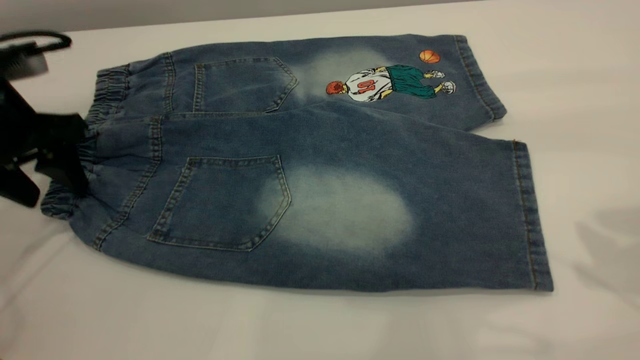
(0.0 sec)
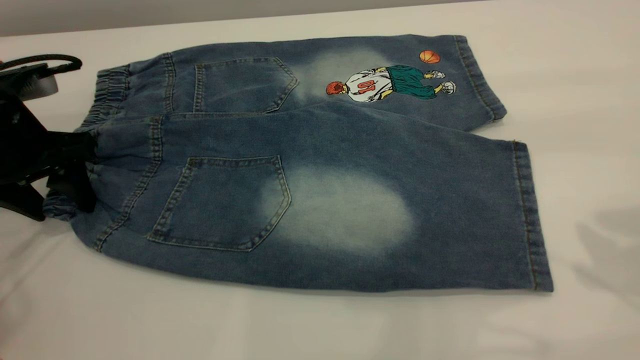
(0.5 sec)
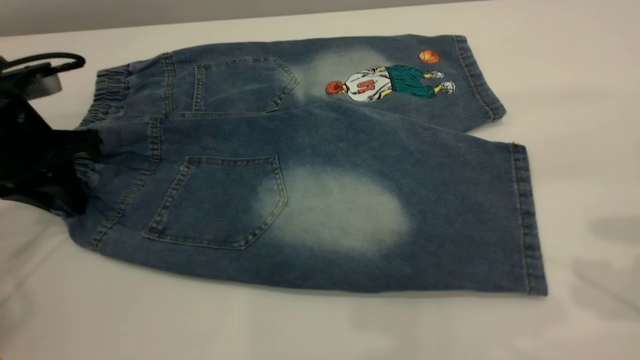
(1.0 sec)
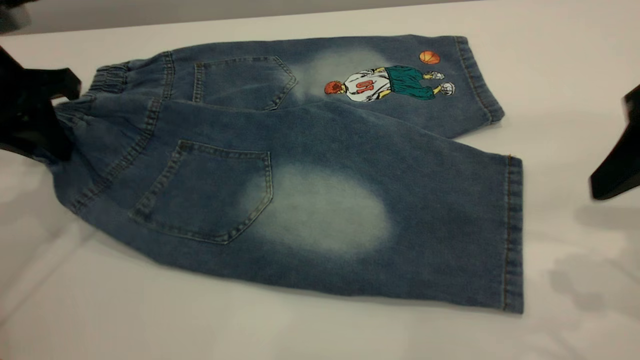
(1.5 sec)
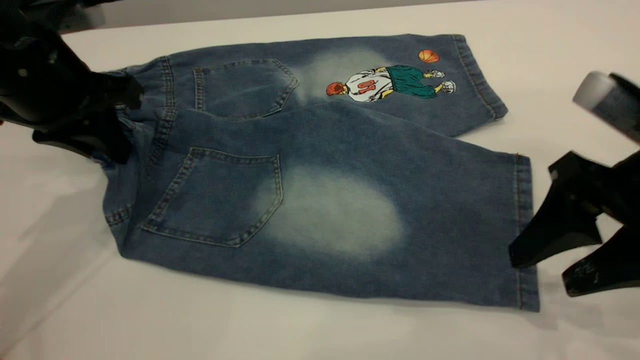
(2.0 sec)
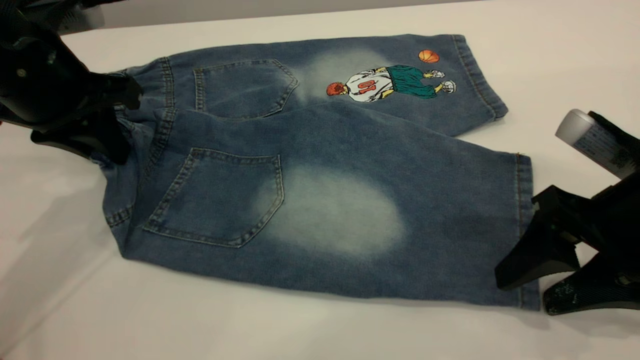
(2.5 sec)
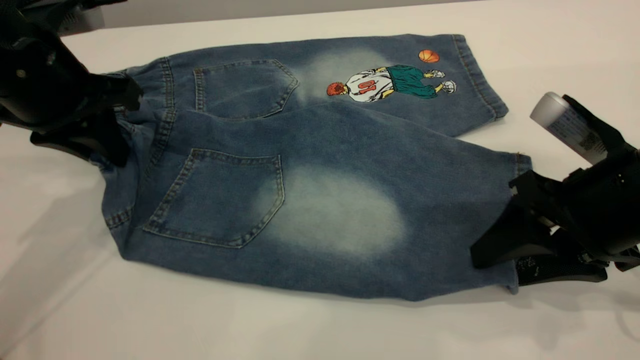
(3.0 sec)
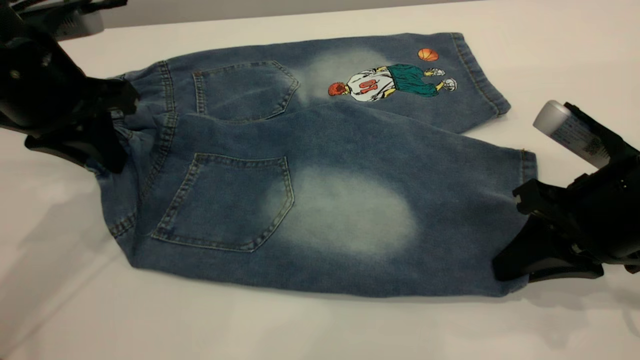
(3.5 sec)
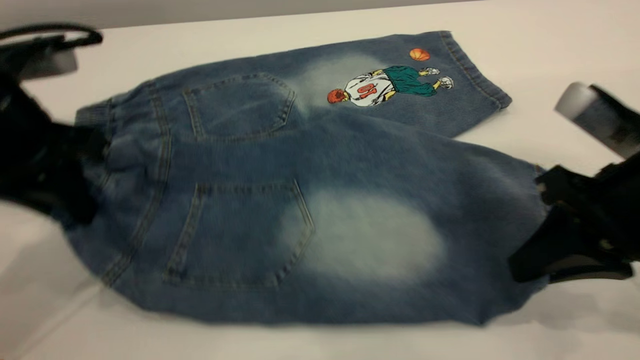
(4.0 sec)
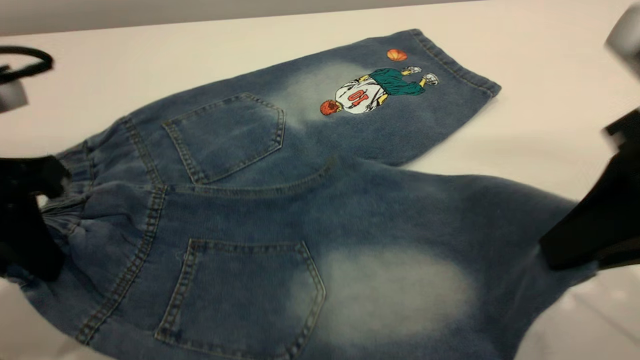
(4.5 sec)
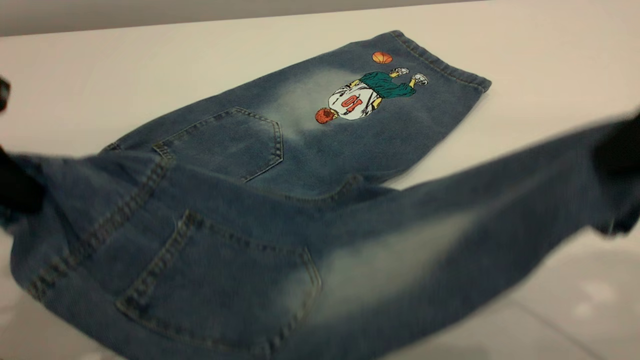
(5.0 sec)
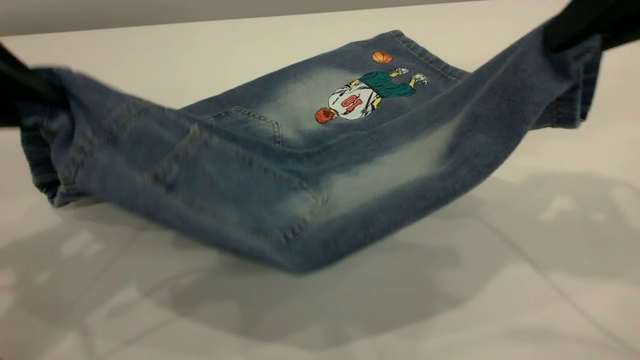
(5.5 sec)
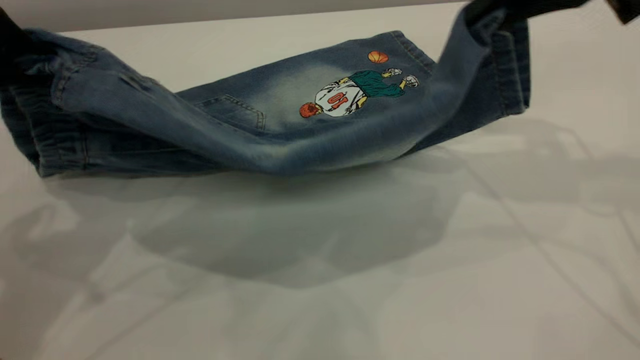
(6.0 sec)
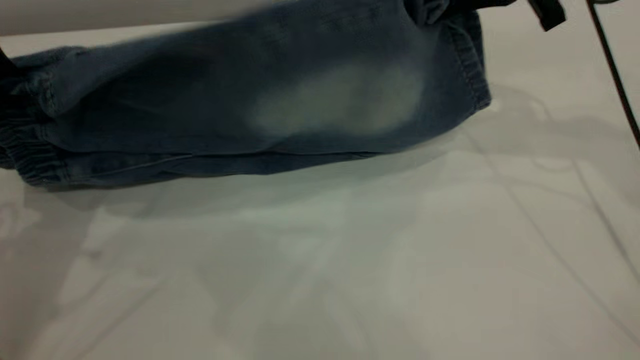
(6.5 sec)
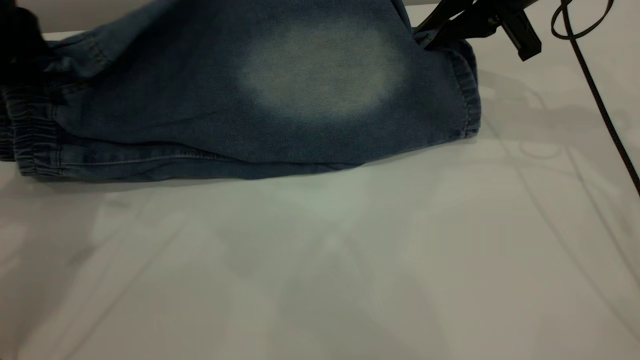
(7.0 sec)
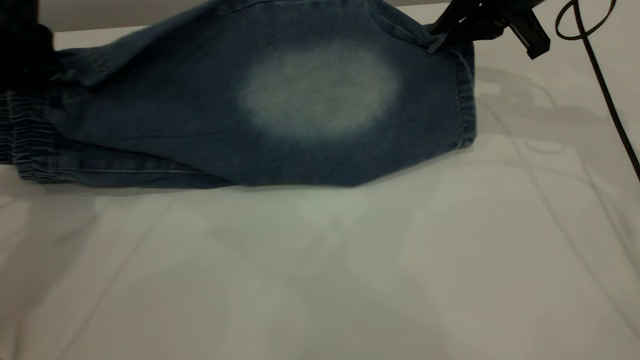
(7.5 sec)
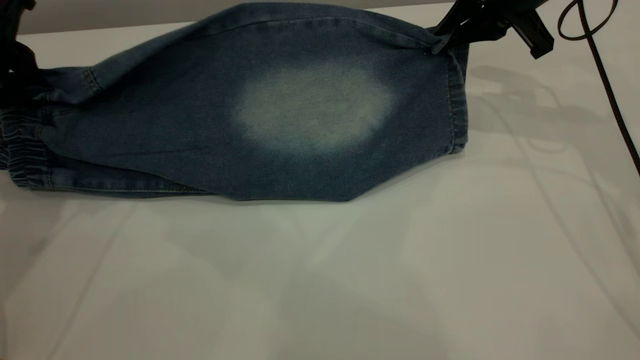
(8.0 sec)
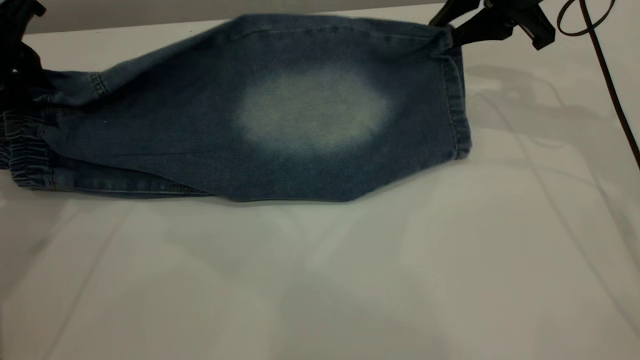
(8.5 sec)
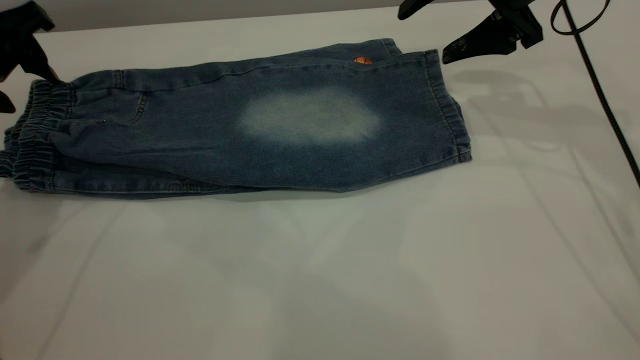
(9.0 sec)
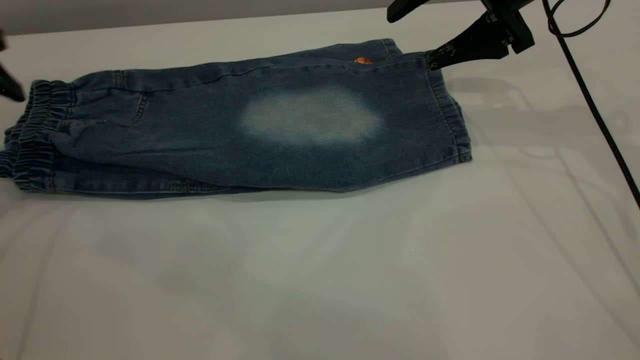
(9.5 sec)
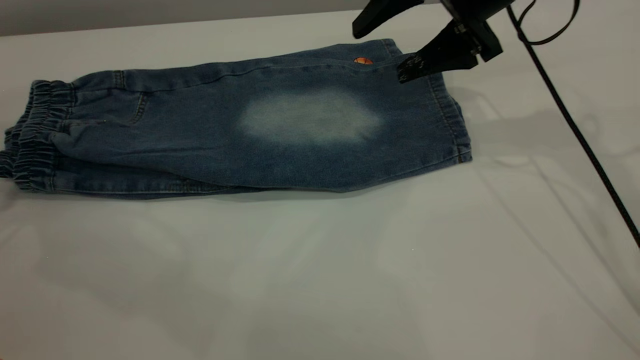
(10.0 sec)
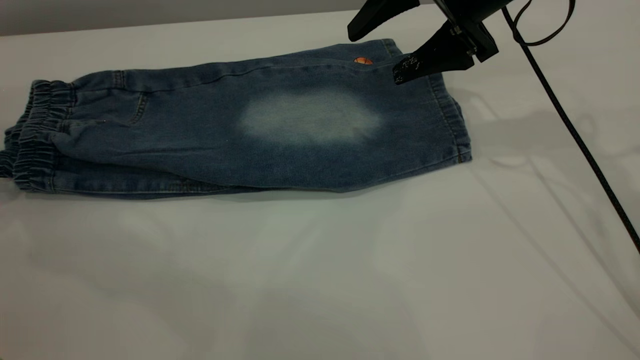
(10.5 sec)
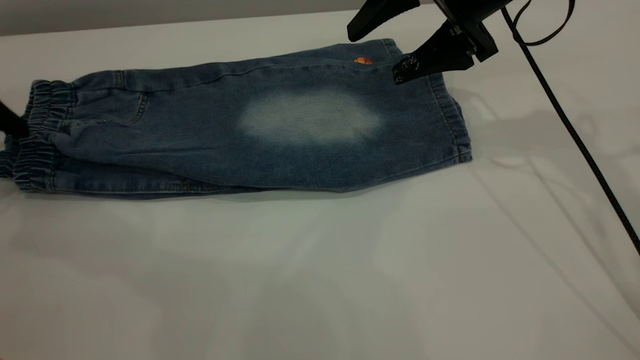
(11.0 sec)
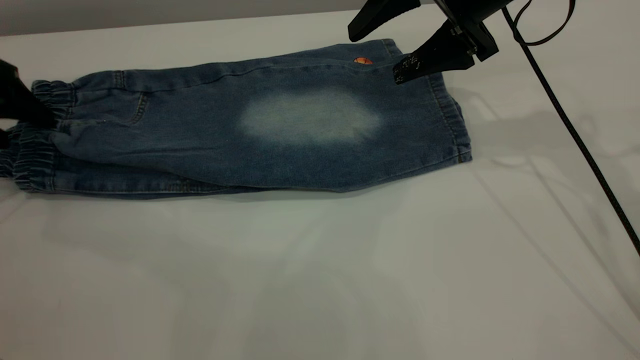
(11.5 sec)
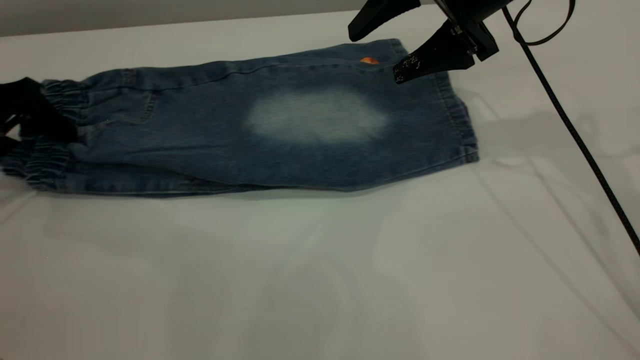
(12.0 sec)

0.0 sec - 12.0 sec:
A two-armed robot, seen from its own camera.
Step, 0.0 sec - 9.5 sec: Fold the bottom of the pants upward.
0.0 sec - 2.0 sec: The left gripper travels to the right by about 5 cm, and closes. The right gripper moves downward, approximately 15 cm.
2.0 sec - 4.0 sec: The left gripper shifts some 5 cm backward. The right gripper closes.
4.0 sec - 6.0 sec: The right gripper shifts approximately 20 cm upward and forward. The left gripper heads upward, covering approximately 10 cm.
6.0 sec - 8.0 sec: The right gripper travels forward and downward by roughly 10 cm, while the left gripper moves forward, downward and to the left, roughly 15 cm.
8.0 sec - 10.0 sec: The right gripper heads to the left, covering approximately 5 cm, and opens its fingers. The left gripper is displaced to the left by roughly 10 cm, and opens its fingers.
10.0 sec - 12.0 sec: The left gripper heads downward, covering about 10 cm.

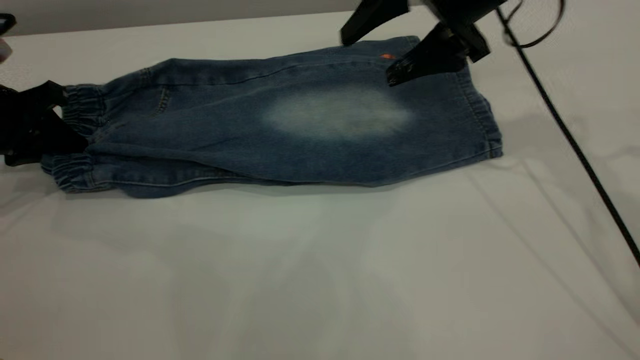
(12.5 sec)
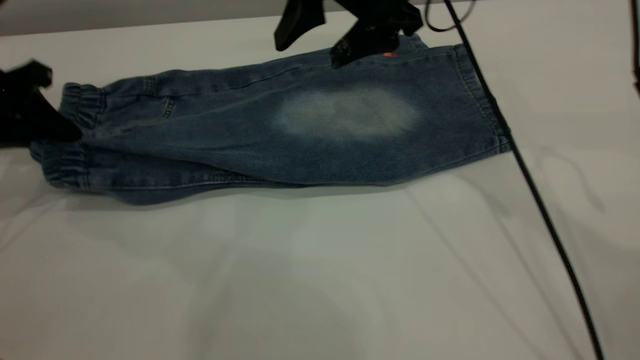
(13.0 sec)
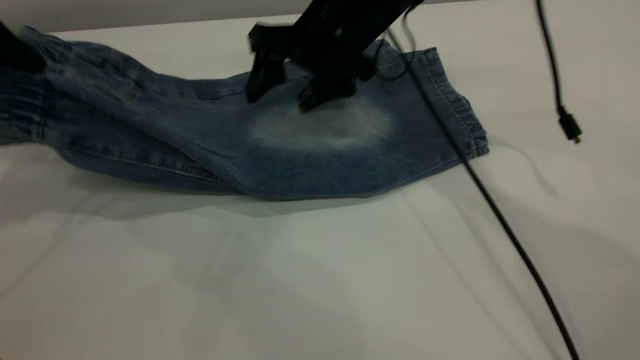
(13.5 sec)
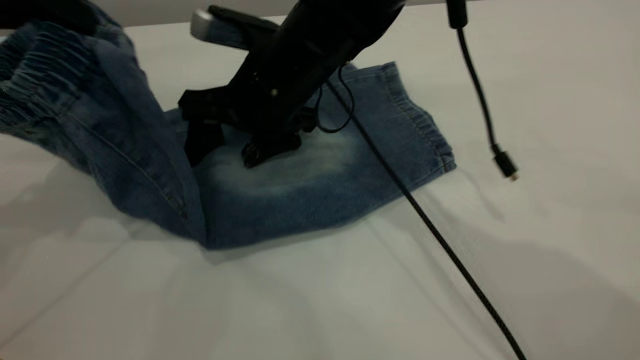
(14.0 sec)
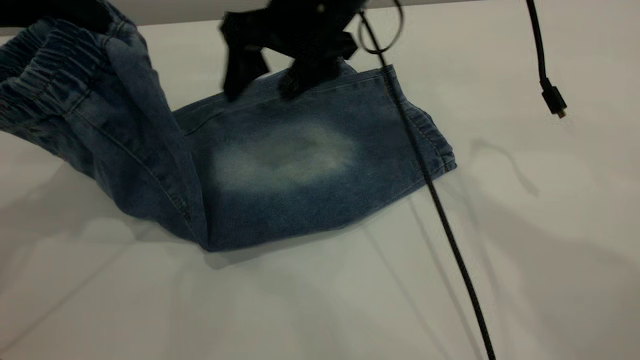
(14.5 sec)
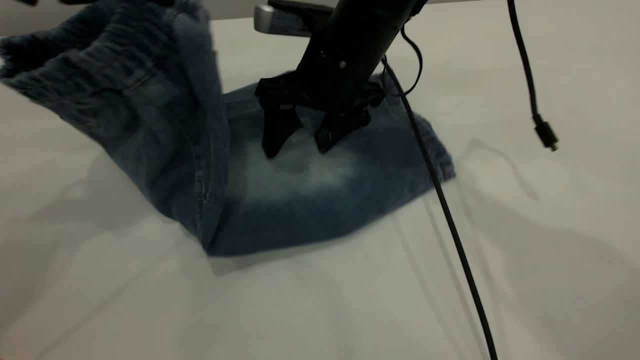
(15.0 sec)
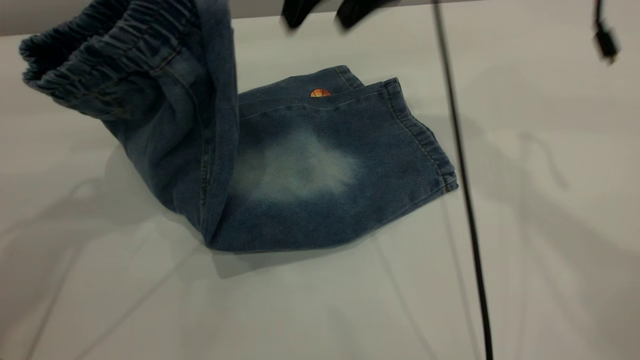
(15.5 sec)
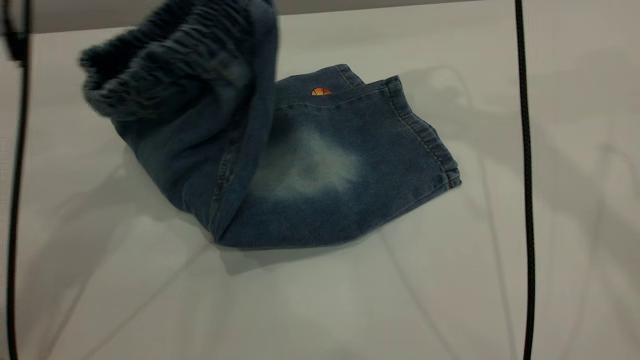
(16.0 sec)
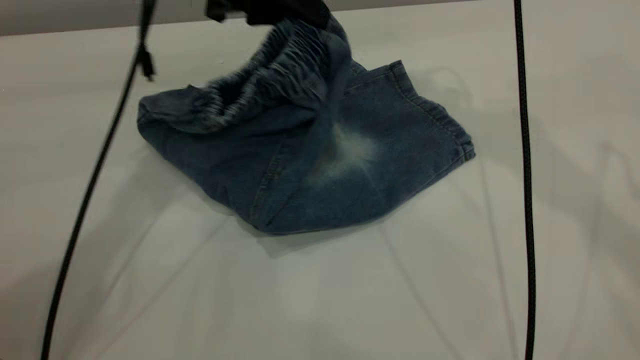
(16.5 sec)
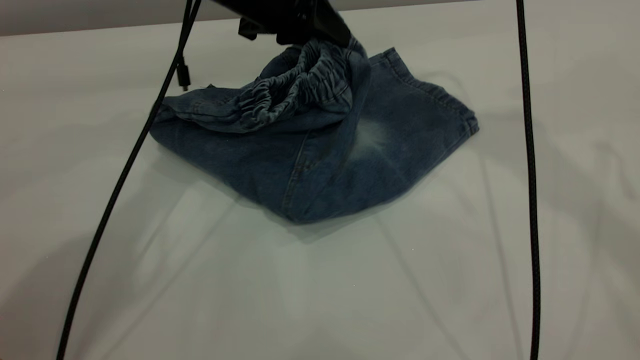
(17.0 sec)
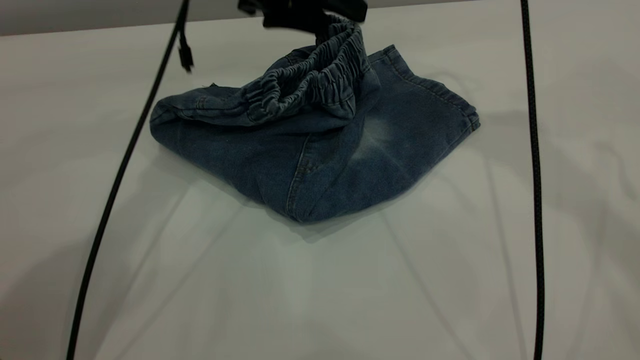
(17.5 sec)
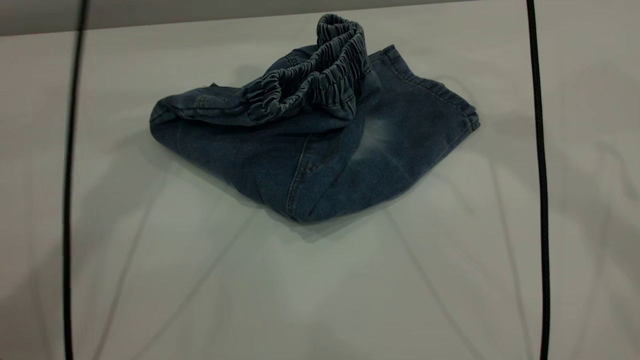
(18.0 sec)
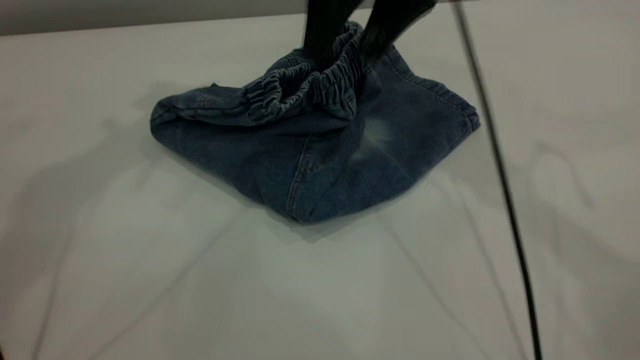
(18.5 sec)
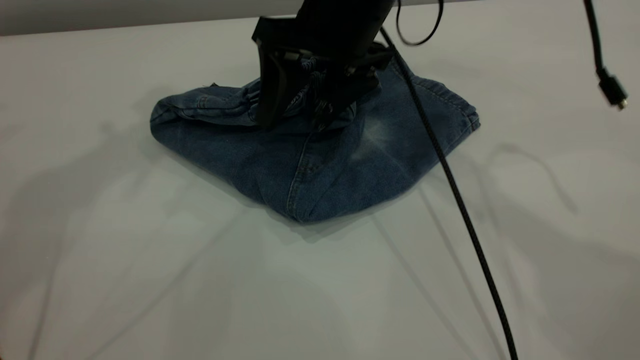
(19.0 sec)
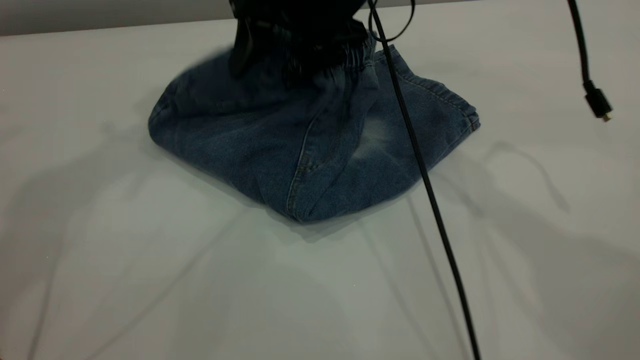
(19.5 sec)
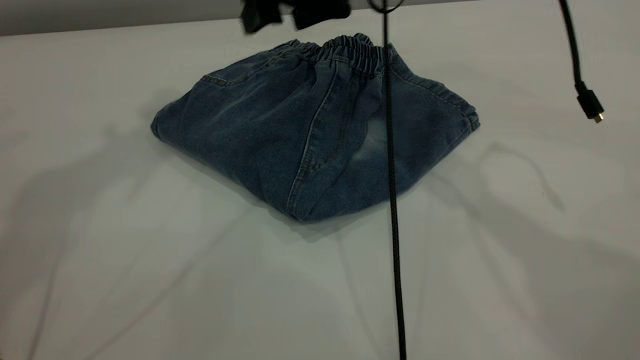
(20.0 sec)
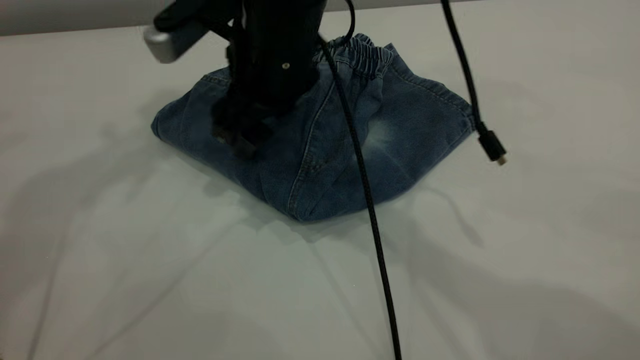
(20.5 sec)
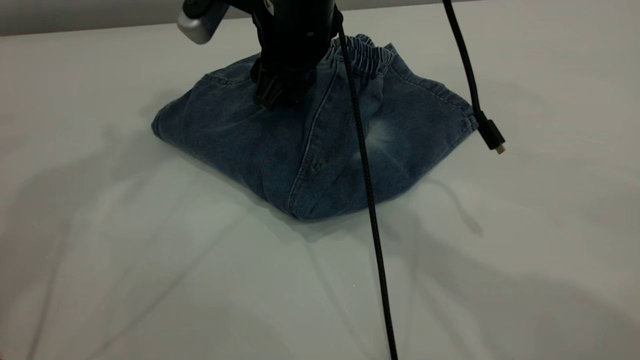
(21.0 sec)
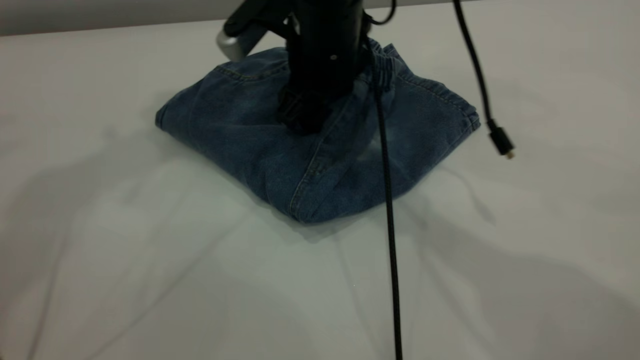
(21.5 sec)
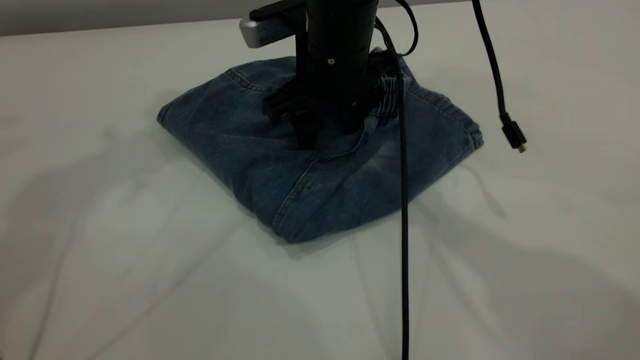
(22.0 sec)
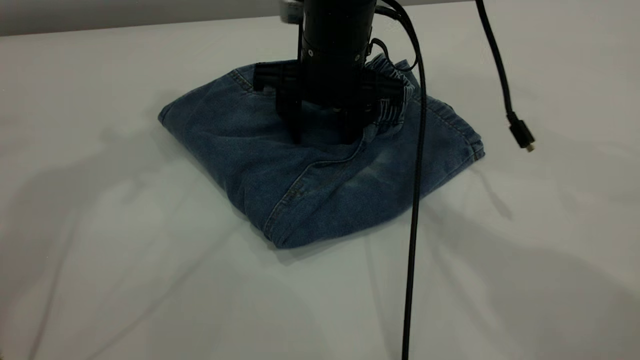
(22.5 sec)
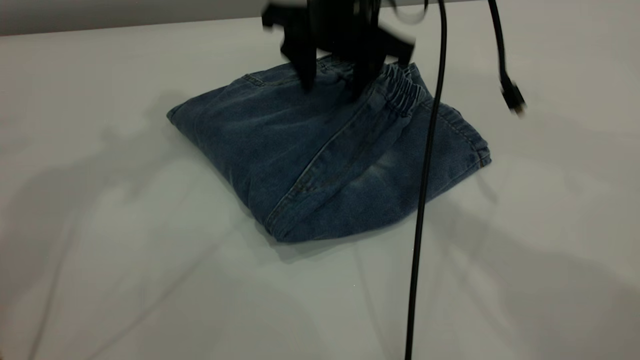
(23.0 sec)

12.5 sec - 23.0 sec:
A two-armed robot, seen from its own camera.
Step, 12.5 sec - 19.5 sec: Fold the pants from left to right.
12.5 sec - 14.5 sec: The left gripper heads upward and to the right, covering approximately 20 cm, while the right gripper goes approximately 15 cm to the left.
14.5 sec - 16.5 sec: The right gripper is displaced upward and to the right by some 20 cm; the left gripper travels to the right, forward and downward by about 20 cm.
16.5 sec - 19.0 sec: The right gripper heads downward and to the left, covering some 15 cm; the left gripper shifts some 25 cm upward and to the left, and opens.
19.0 sec - 21.0 sec: The right gripper is displaced to the left by some 5 cm.
21.0 sec - 23.0 sec: The right gripper shifts by some 5 cm.
